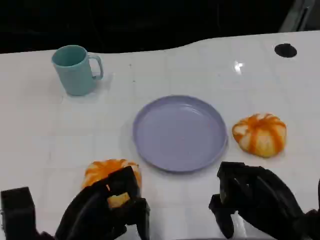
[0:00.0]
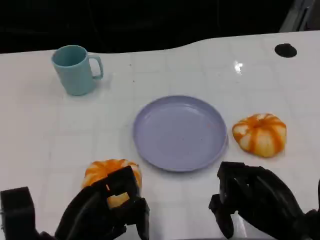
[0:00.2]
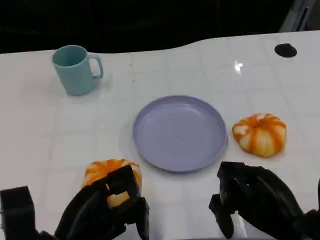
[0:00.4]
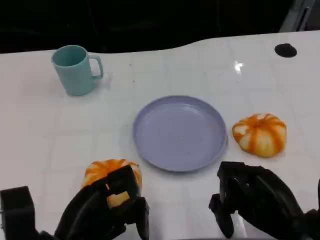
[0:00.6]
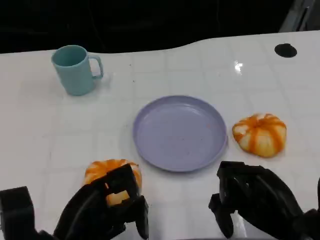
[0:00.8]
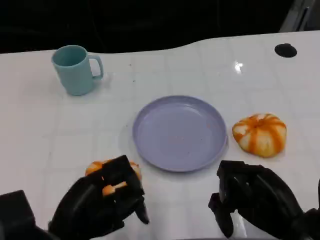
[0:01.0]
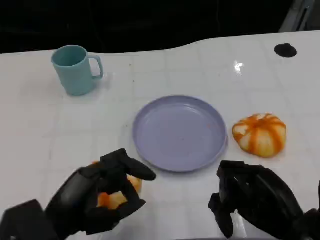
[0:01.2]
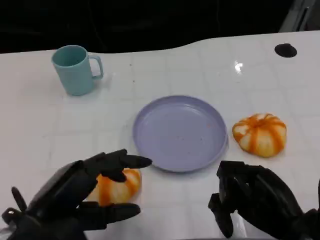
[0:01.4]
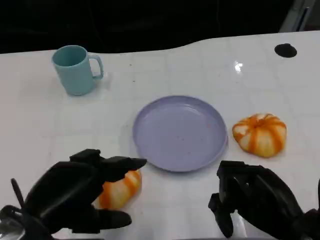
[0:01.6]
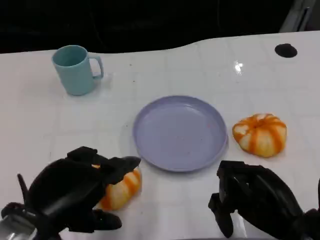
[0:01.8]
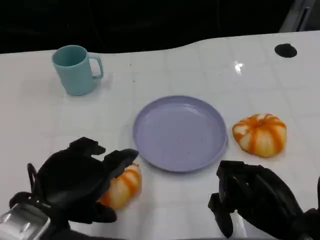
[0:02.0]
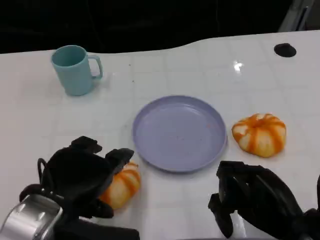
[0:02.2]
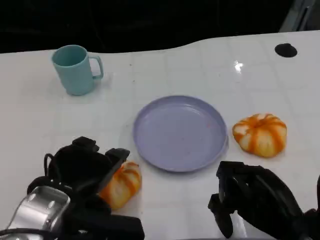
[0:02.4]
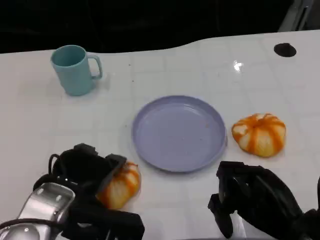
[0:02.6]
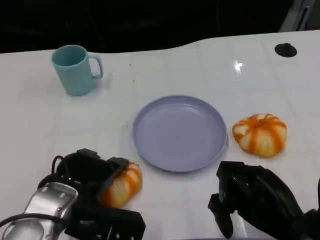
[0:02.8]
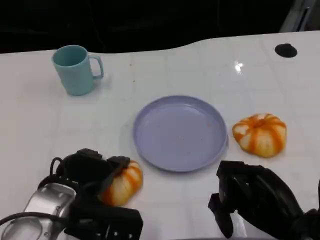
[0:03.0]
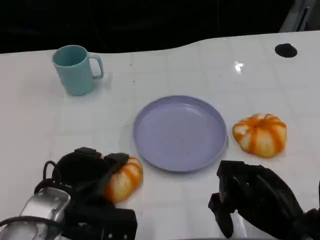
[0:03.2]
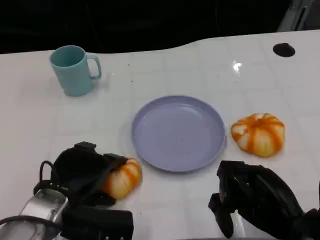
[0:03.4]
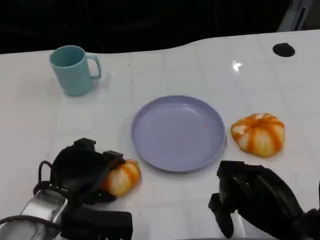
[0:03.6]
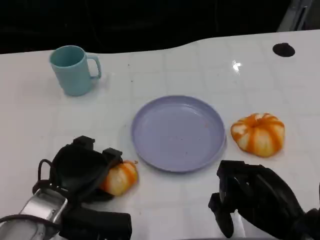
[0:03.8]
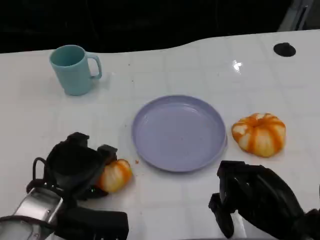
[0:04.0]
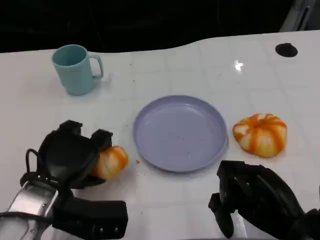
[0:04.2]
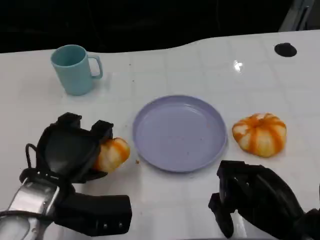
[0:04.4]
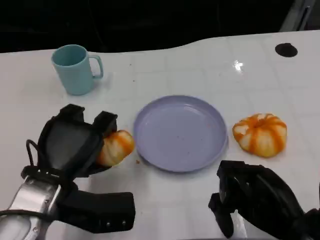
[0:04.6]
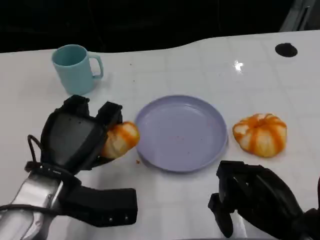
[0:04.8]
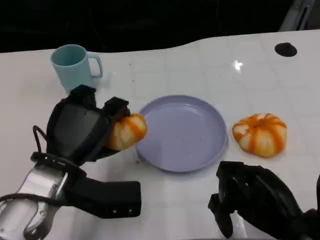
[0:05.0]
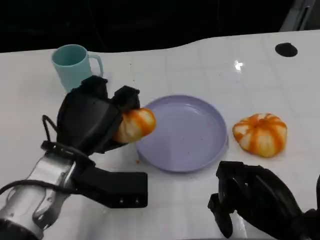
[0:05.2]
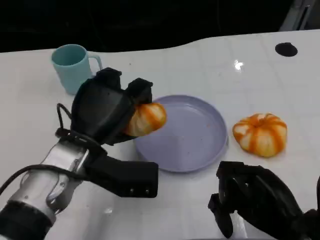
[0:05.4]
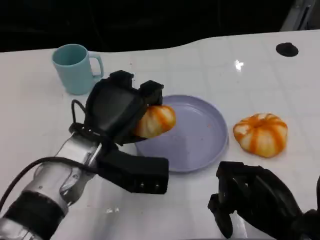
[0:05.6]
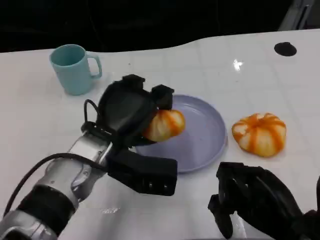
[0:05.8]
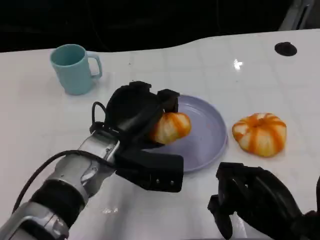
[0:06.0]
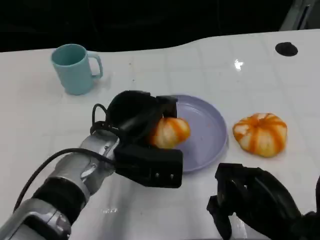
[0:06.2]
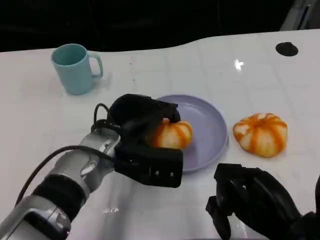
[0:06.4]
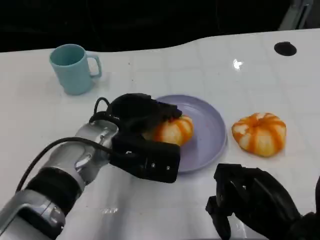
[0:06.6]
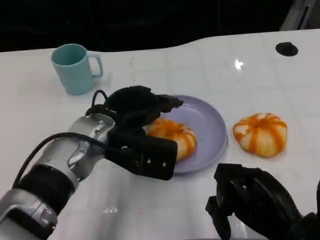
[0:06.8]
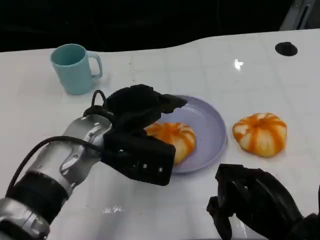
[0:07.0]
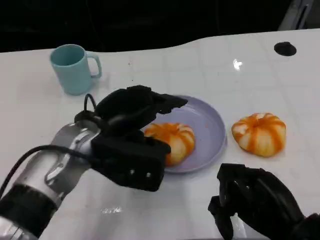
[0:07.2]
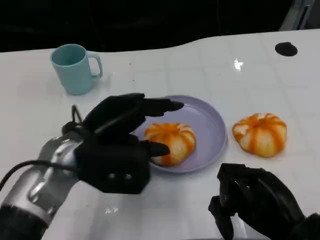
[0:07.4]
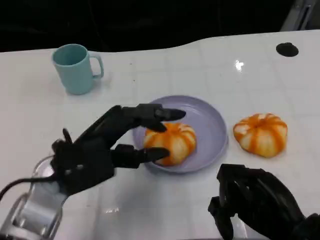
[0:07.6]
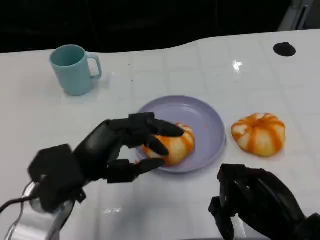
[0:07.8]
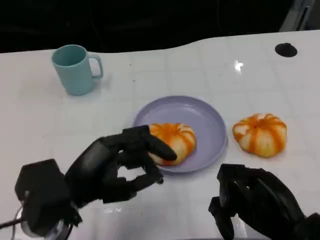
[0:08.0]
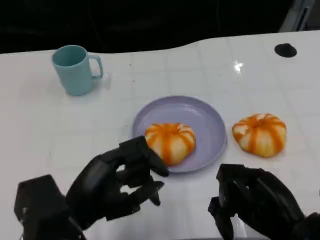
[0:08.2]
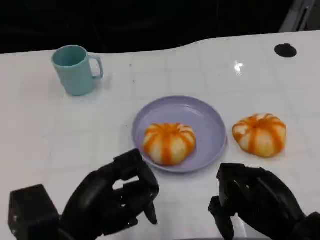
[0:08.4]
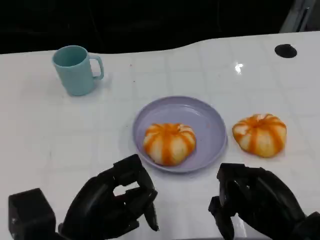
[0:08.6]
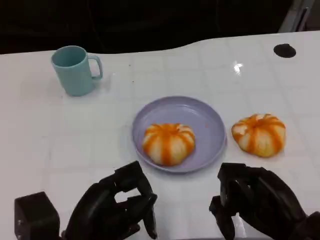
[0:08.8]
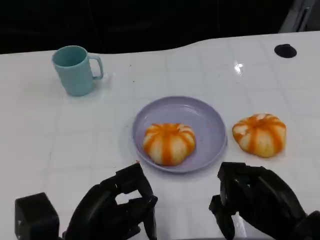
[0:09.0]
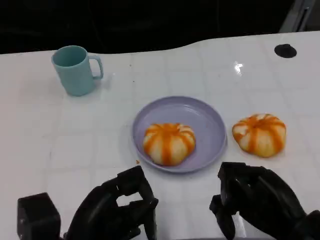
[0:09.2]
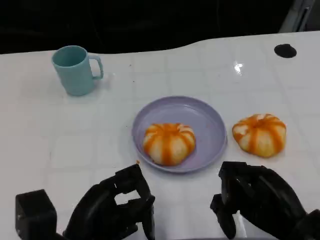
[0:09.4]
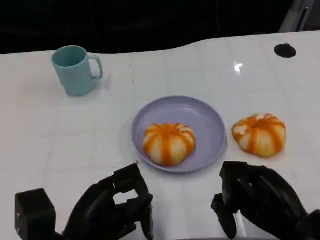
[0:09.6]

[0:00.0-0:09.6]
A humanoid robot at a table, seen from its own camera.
Task of the whole recording: Grasp the bread from the table and place it into the plate.
0.0 to 1.6 s: The left hand goes approximately 10 cm upward.
1.6 to 3.2 s: The left hand moves downward and forward, approximately 10 cm.
4.8 to 6.4 s: The left hand moves to the right and forward, some 10 cm.
6.4 to 8.0 s: The left hand travels backward and to the left by approximately 15 cm.
8.0 to 9.6 s: The left hand shifts by approximately 5 cm.

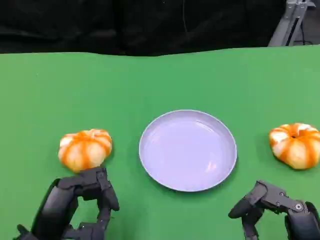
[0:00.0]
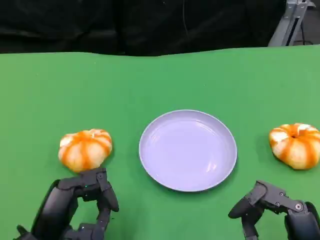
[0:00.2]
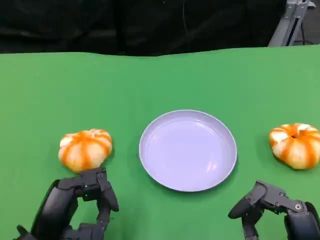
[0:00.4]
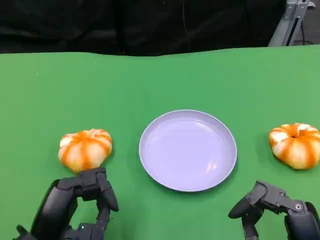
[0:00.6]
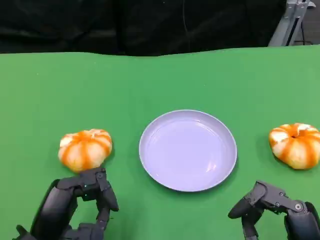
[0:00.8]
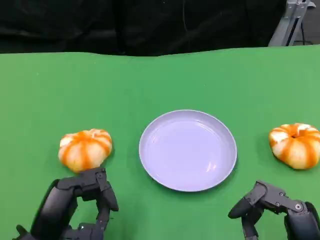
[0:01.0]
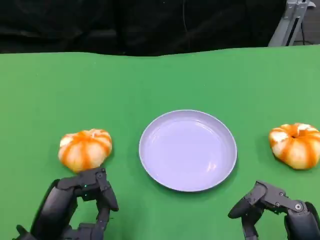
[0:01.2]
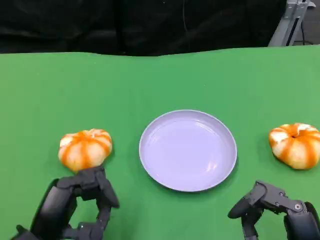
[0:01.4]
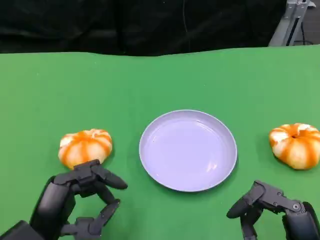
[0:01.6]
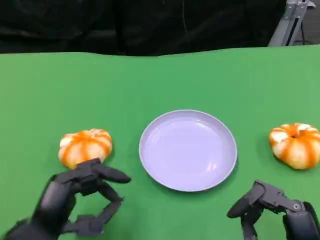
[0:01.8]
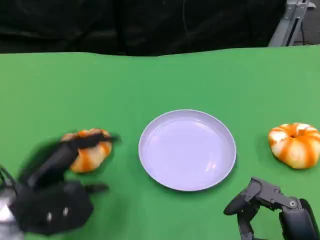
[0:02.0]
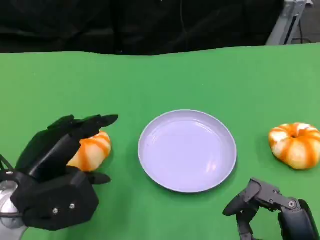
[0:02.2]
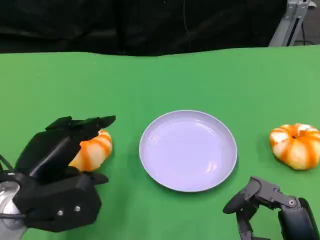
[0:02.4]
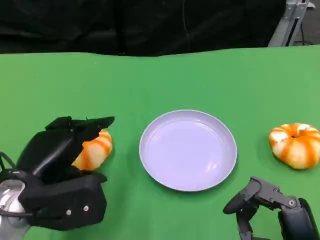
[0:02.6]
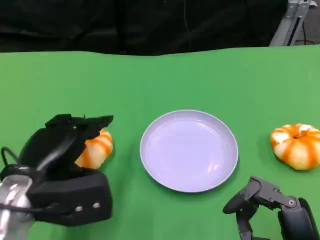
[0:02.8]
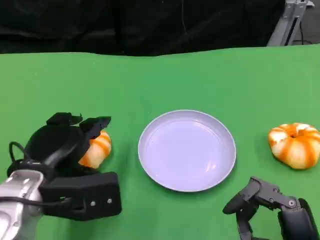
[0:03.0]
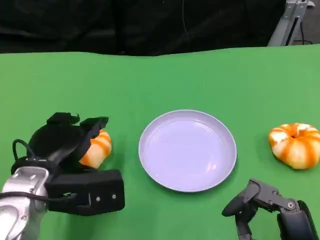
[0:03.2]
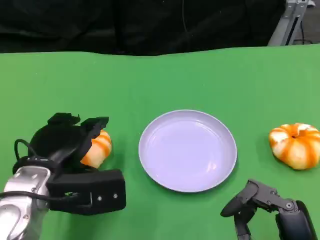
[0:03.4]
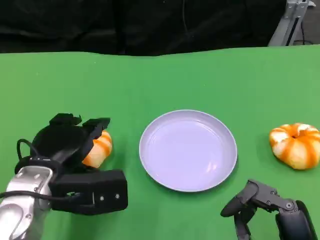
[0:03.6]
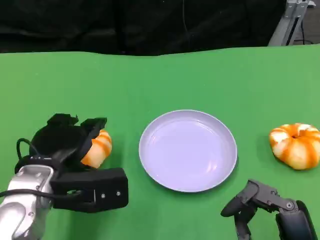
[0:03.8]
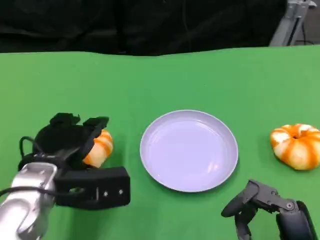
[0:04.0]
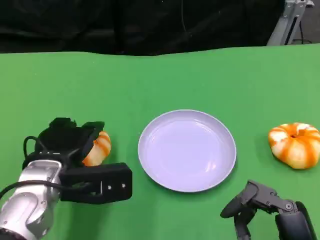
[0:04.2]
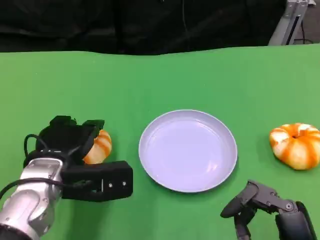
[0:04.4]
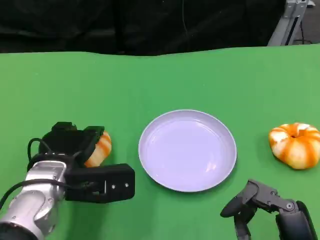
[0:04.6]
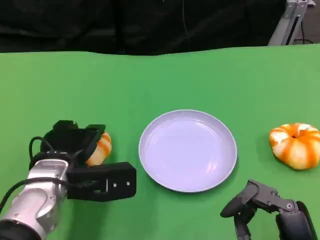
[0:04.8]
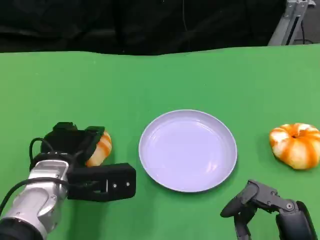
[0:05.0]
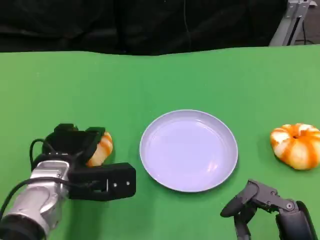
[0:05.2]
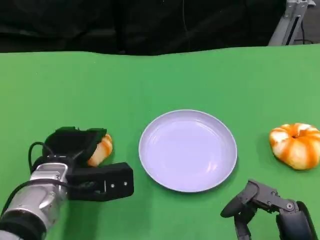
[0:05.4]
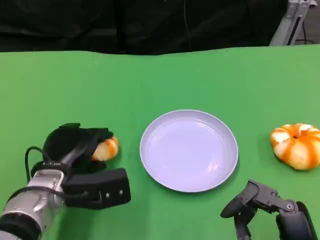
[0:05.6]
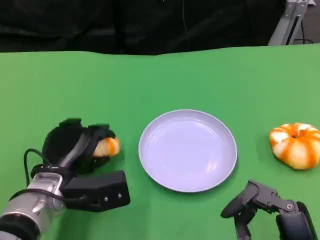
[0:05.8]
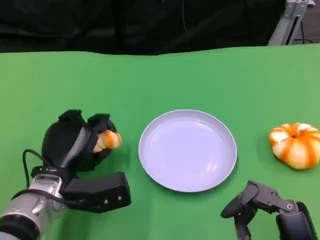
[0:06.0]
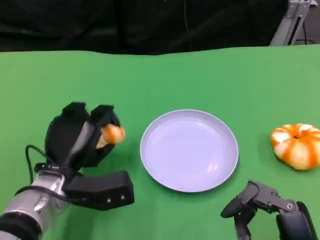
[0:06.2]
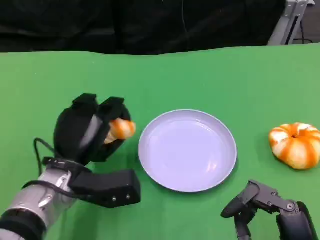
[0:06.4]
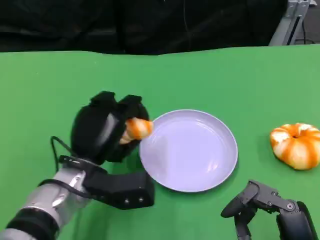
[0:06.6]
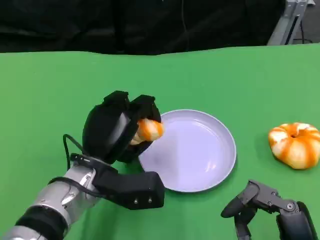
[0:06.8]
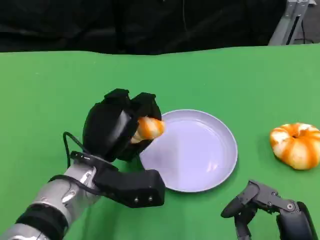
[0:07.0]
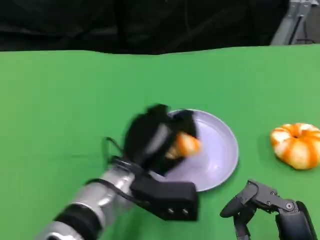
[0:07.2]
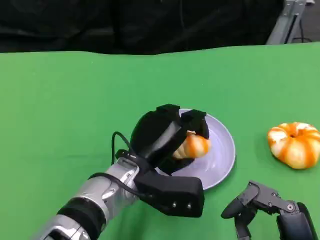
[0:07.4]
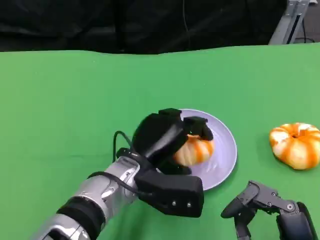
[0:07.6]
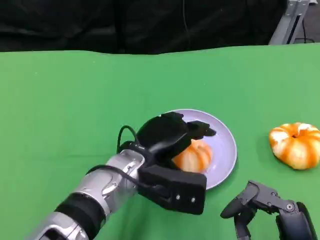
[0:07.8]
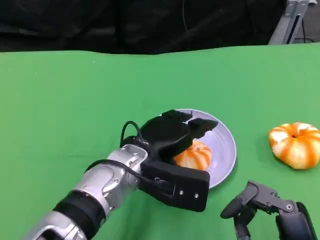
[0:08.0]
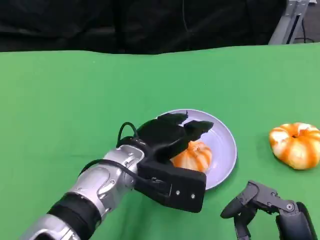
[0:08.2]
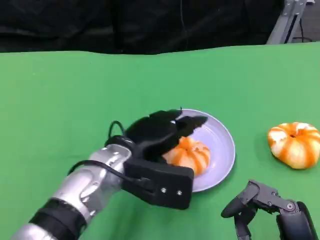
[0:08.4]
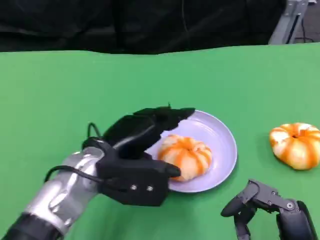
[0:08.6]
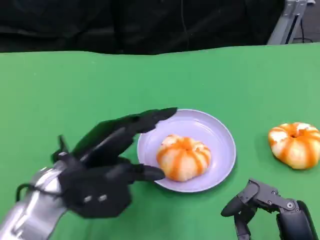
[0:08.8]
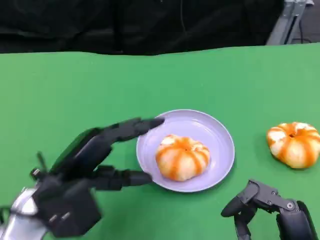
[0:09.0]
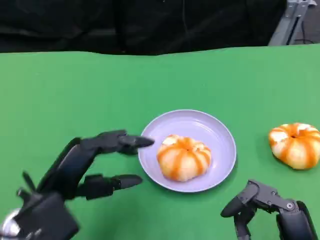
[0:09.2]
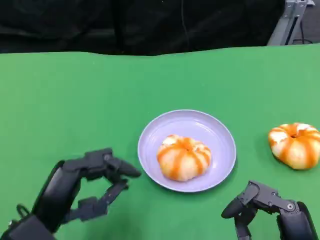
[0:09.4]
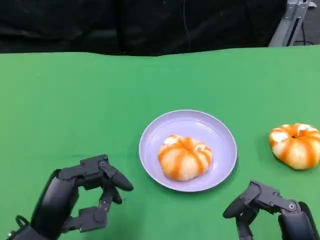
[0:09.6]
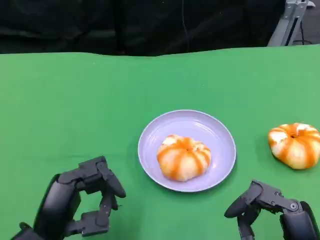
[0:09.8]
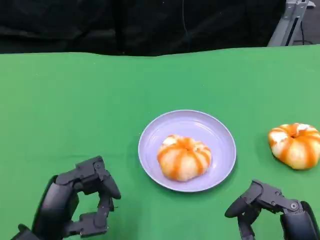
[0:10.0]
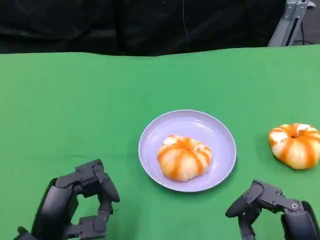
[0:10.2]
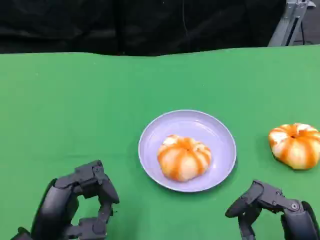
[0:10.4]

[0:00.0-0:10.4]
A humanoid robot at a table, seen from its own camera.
Task of the whole recording: Grasp the bread from the table and place it into the plate.
0.0 to 1.4 s: Both hands stay about where they are.
1.4 to 3.0 s: The left hand is displaced forward and upward by some 10 cm.
3.0 to 4.4 s: There are only small adjustments of the hands.
6.0 to 7.4 s: The left hand heads to the right, covering about 10 cm.
7.4 to 9.0 s: The left hand heads to the left and backward, covering about 15 cm.
9.0 to 10.4 s: The left hand travels backward and downward by about 10 cm.

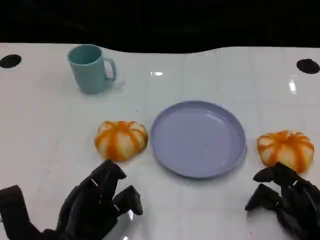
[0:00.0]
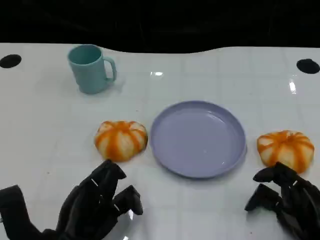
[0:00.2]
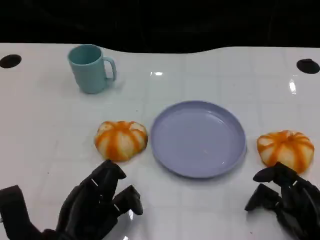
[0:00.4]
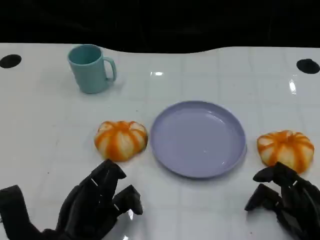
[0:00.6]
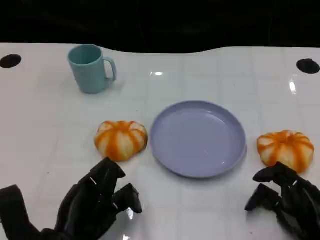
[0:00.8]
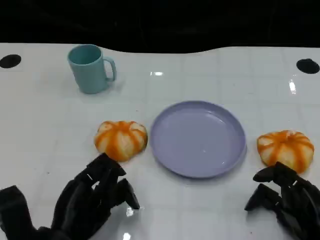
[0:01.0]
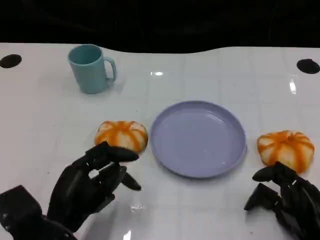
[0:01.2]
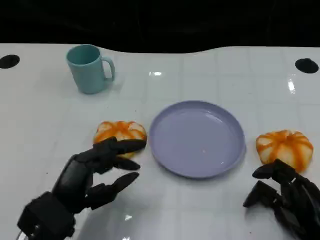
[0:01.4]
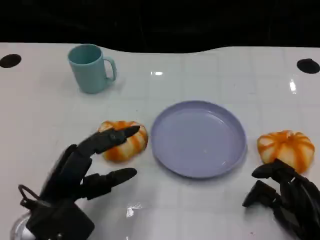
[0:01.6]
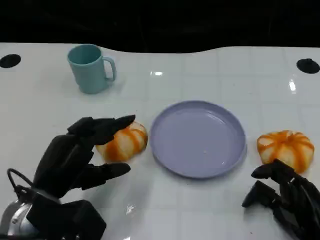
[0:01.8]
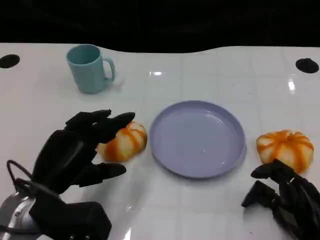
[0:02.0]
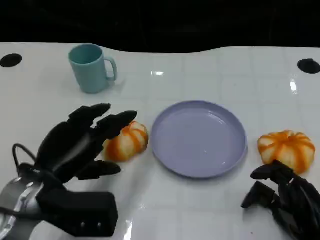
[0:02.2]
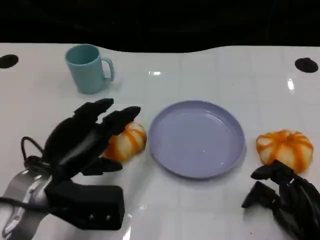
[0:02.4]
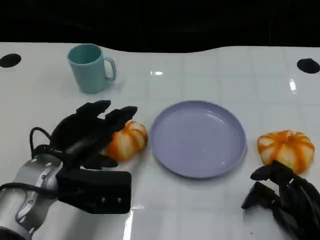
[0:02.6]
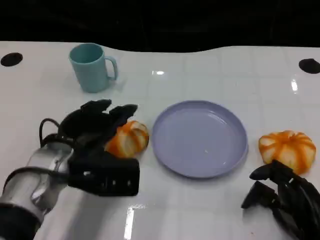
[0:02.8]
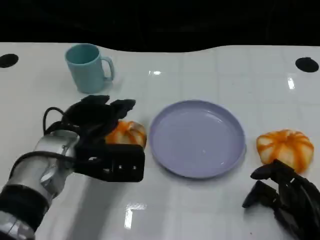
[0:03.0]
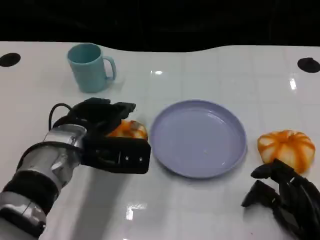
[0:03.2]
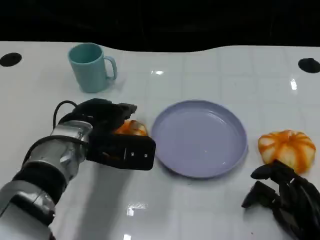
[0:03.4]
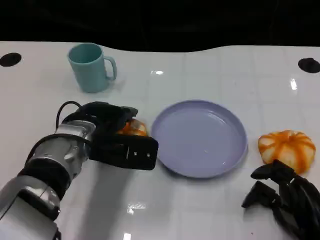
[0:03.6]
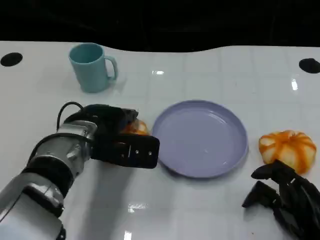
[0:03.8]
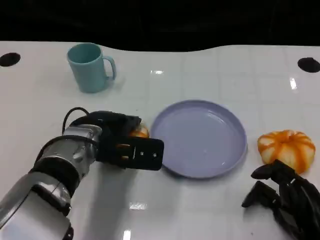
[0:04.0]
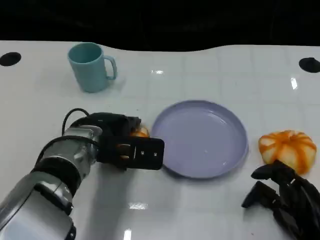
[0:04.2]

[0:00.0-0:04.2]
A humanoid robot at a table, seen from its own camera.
Task of the whole recording: Grasp the bread from the table and place it into the plate.
1.4 to 2.8 s: The left hand is displaced forward by roughly 10 cm.
2.8 to 4.2 s: The left hand changes place by approximately 5 cm.
